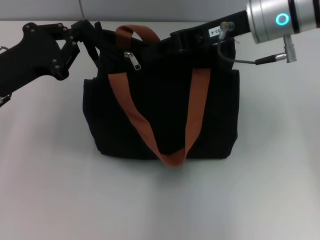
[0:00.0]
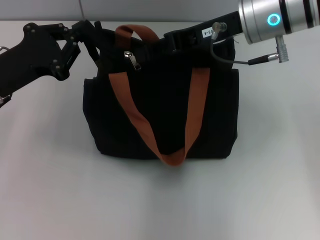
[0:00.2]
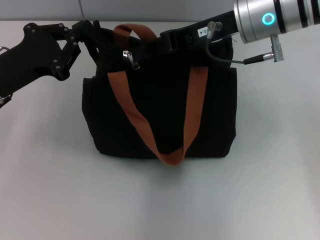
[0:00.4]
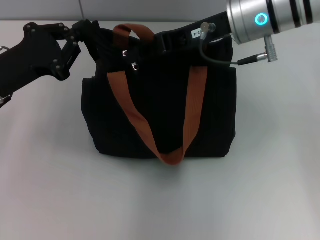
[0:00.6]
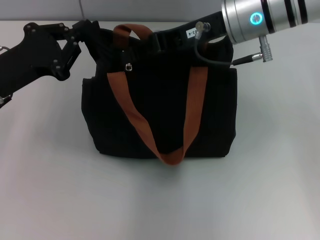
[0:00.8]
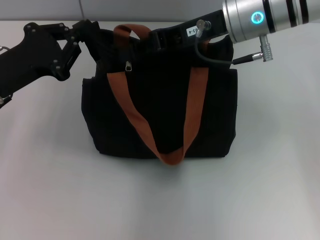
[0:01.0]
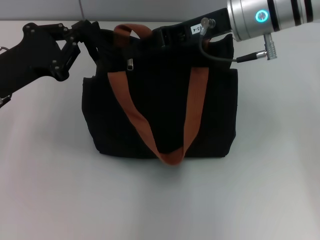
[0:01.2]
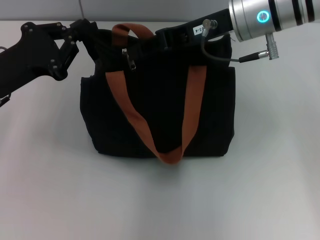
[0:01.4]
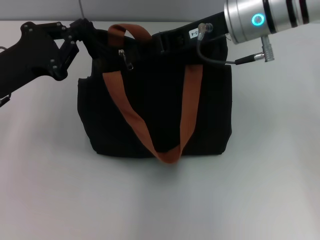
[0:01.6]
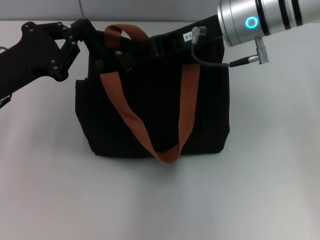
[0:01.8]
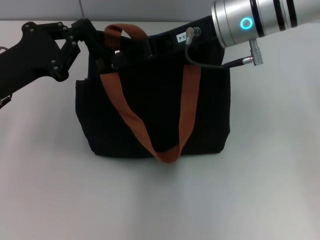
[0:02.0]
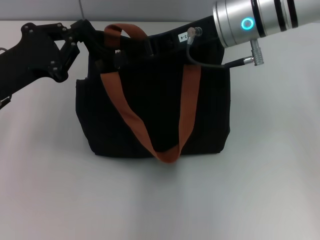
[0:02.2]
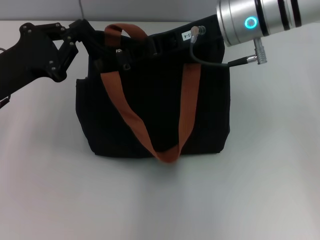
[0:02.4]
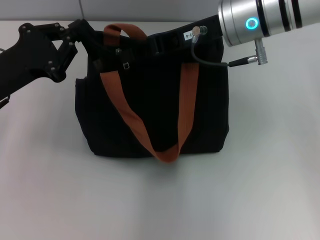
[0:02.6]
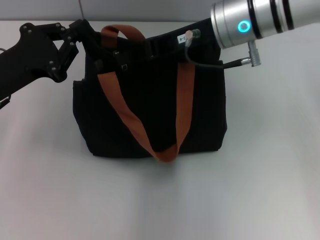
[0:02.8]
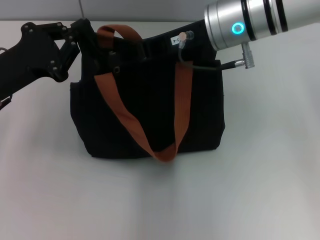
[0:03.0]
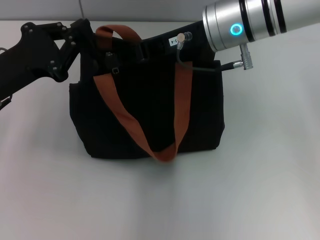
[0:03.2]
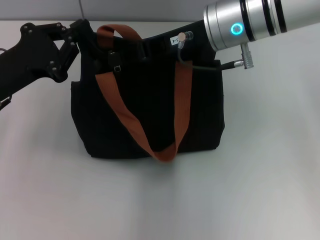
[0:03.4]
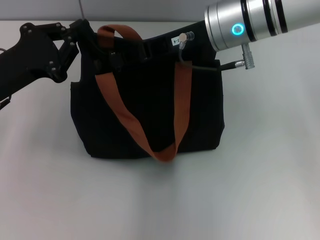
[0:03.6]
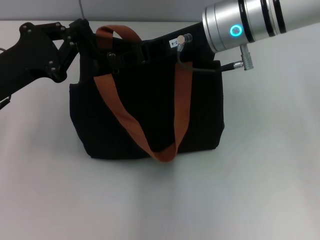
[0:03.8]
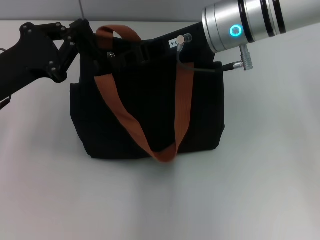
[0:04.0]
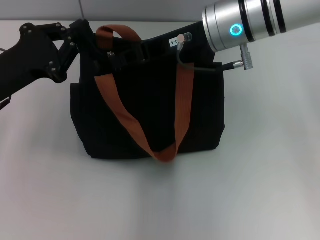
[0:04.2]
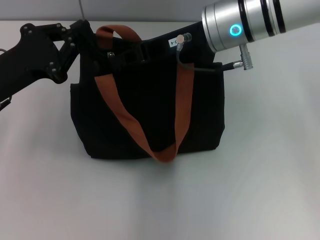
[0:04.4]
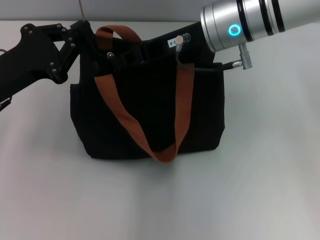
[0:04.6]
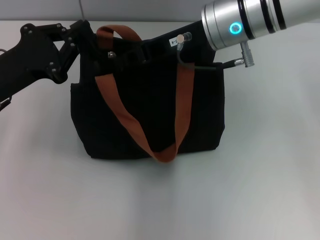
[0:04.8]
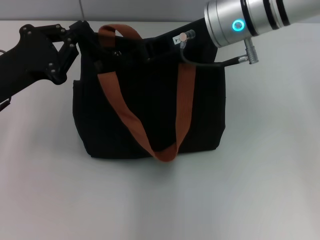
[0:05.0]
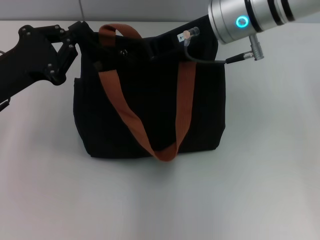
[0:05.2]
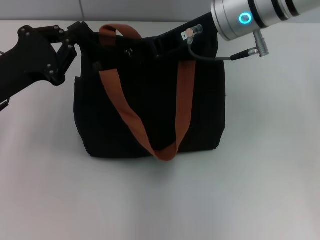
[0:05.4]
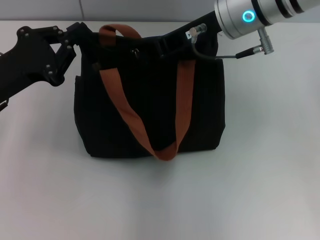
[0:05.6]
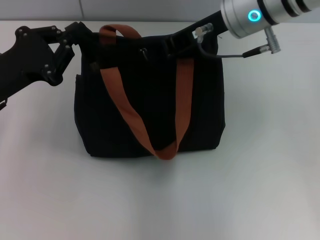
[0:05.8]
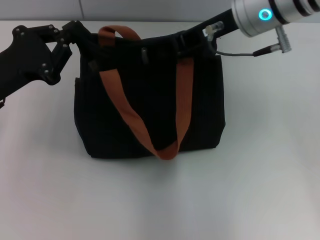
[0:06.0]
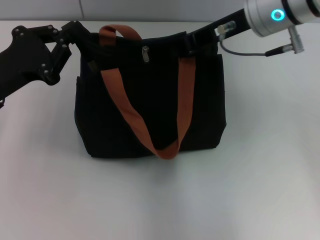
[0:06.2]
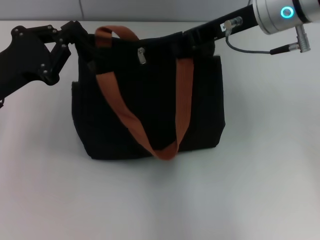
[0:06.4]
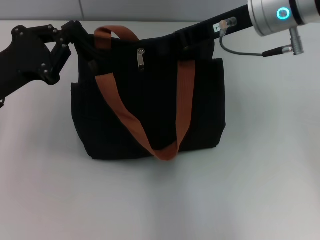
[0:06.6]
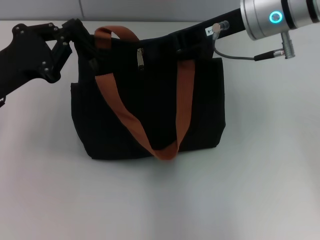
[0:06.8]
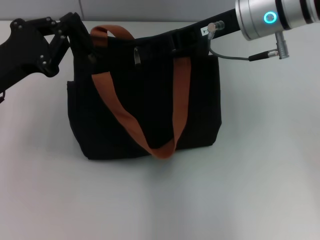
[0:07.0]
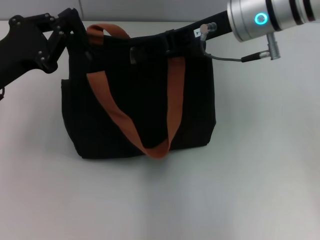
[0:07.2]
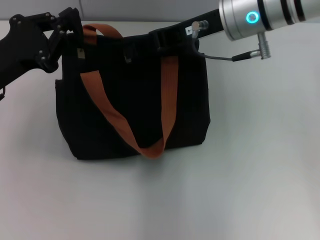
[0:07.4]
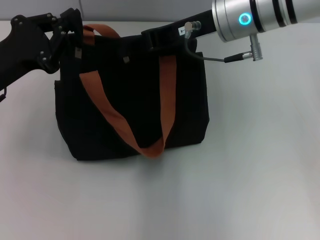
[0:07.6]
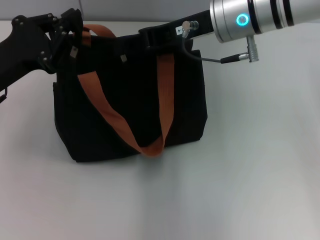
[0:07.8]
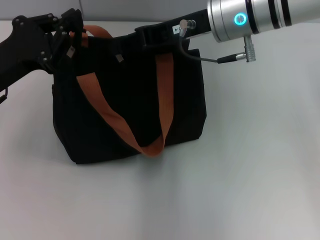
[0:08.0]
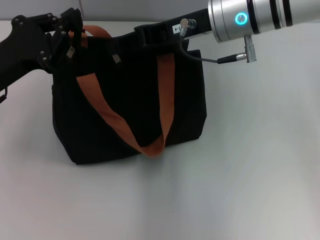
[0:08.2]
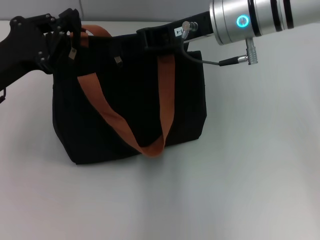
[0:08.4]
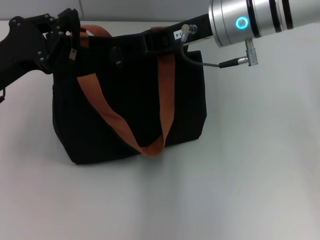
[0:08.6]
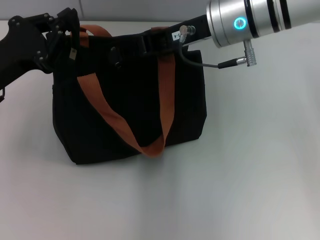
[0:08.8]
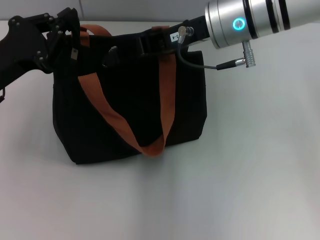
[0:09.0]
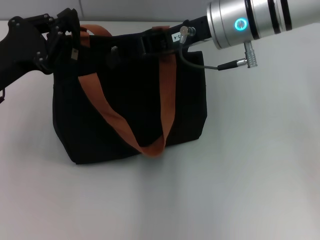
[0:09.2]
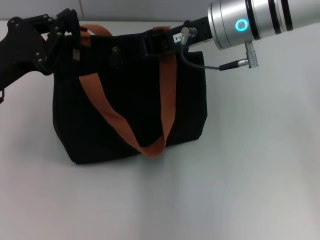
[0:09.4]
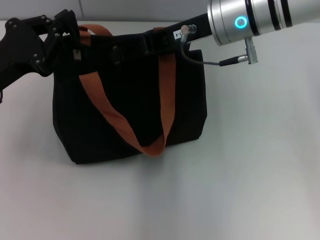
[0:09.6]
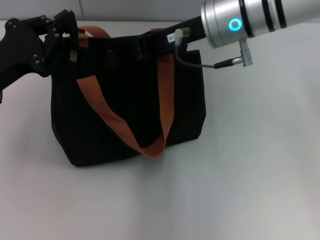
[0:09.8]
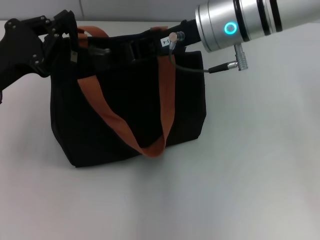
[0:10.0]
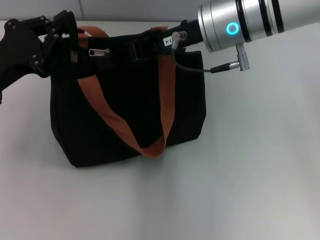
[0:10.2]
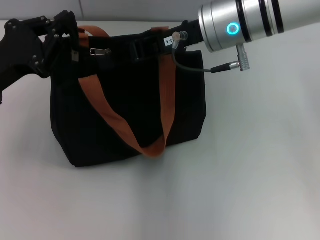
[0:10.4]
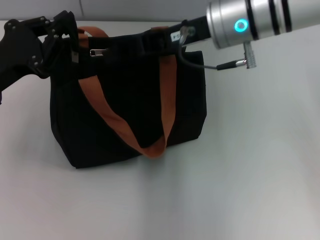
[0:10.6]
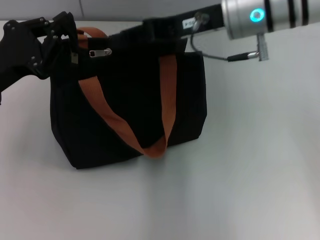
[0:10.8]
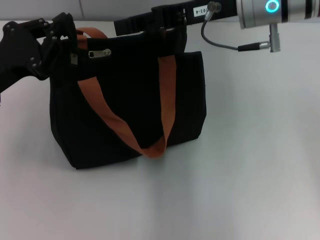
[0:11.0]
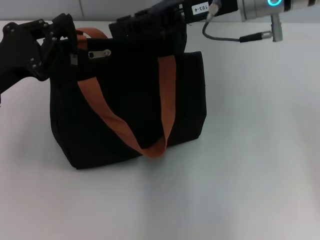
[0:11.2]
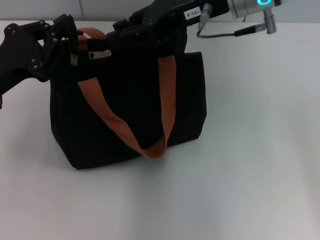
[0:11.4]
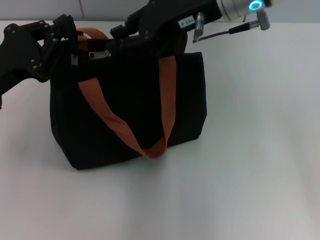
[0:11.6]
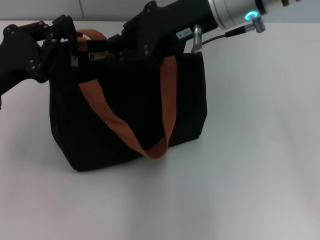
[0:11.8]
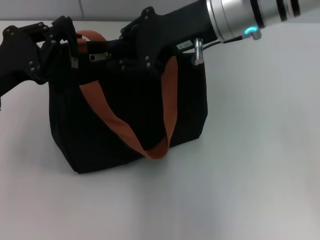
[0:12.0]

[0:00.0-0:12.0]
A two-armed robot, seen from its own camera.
0:00.0 to 0:03.0: The grippers stay close to where they were, moving slightly.
0:03.0 to 0:04.4: Neither gripper changes place.
0:04.4 to 0:06.0: The grippers move only a little.
0:06.0 to 0:07.6: The right gripper opens its fingers.
0:07.6 to 0:09.0: The grippers stay close to where they were, moving slightly.
0:09.0 to 0:10.4: Both grippers stay about where they are.

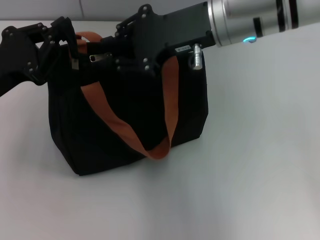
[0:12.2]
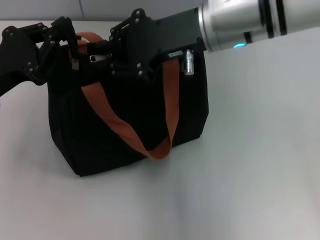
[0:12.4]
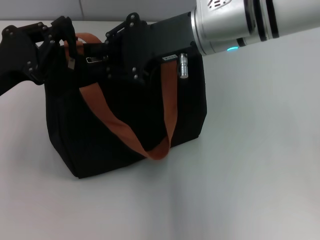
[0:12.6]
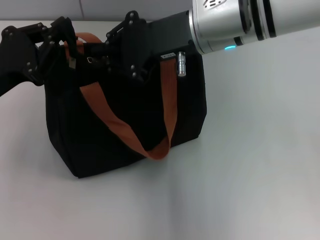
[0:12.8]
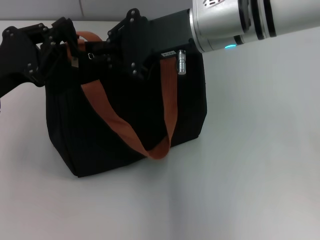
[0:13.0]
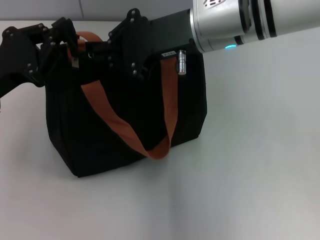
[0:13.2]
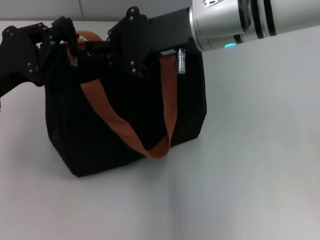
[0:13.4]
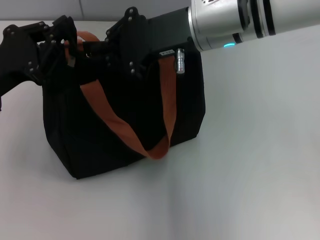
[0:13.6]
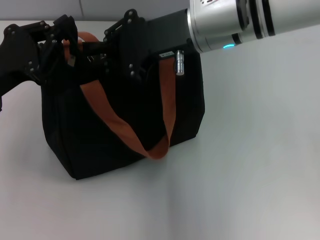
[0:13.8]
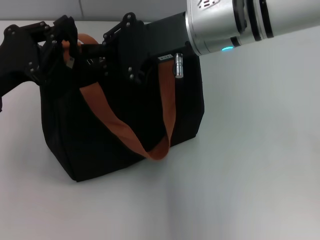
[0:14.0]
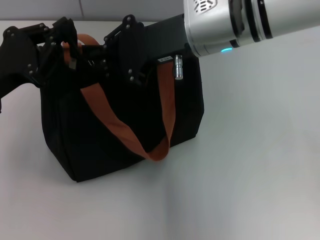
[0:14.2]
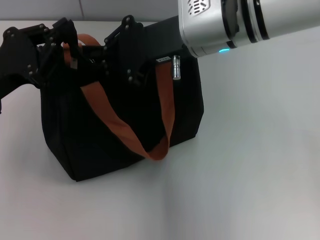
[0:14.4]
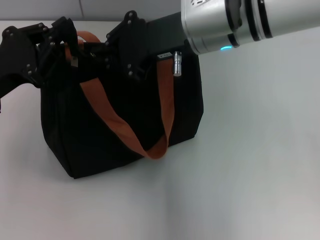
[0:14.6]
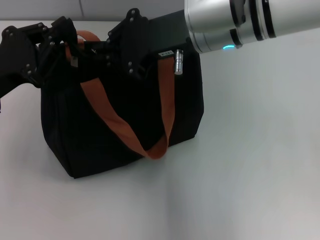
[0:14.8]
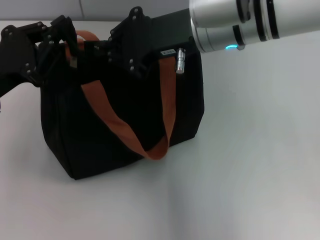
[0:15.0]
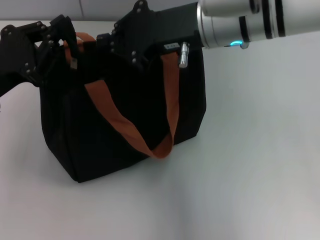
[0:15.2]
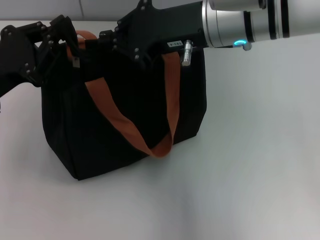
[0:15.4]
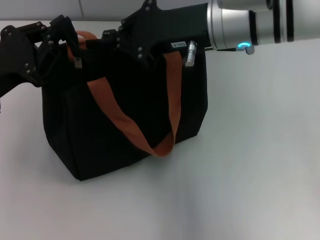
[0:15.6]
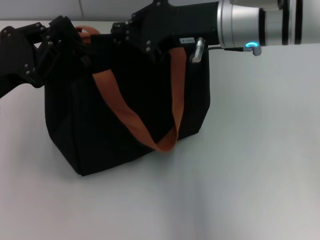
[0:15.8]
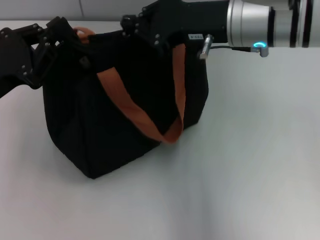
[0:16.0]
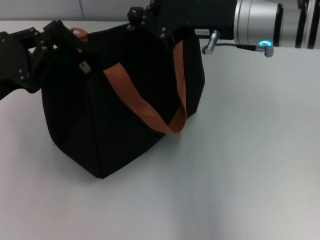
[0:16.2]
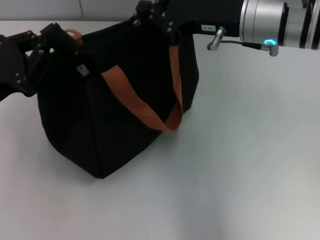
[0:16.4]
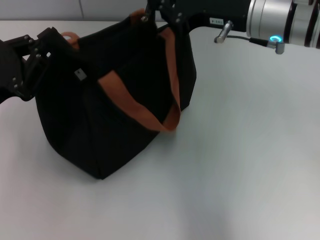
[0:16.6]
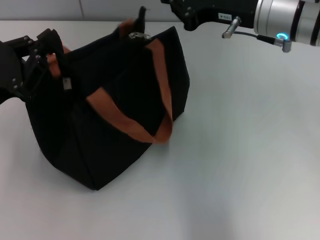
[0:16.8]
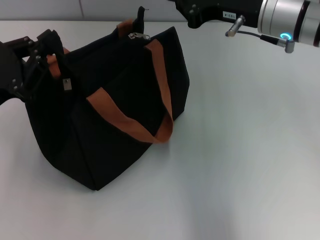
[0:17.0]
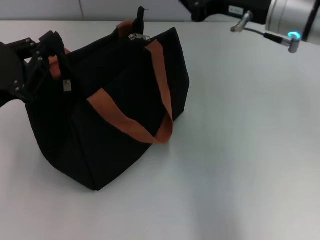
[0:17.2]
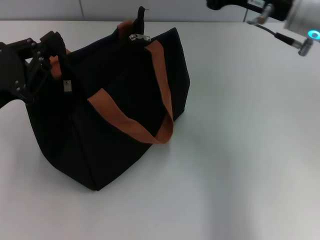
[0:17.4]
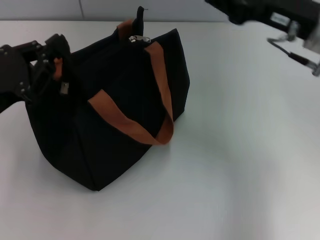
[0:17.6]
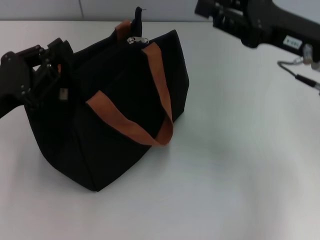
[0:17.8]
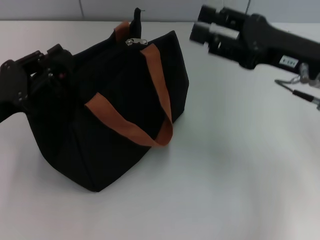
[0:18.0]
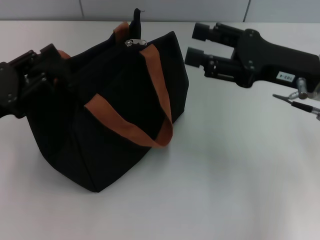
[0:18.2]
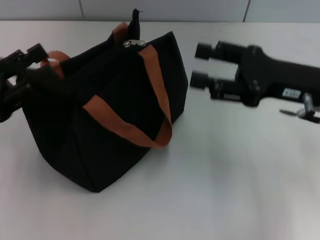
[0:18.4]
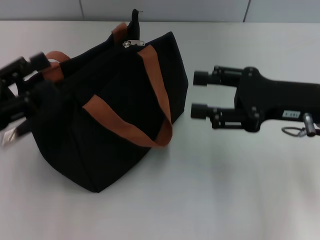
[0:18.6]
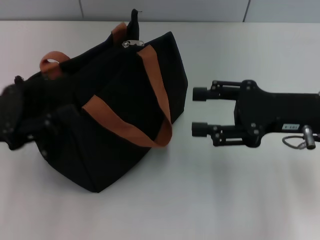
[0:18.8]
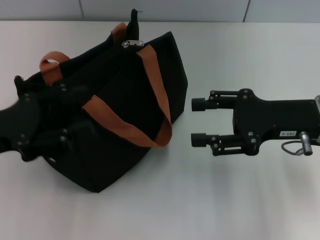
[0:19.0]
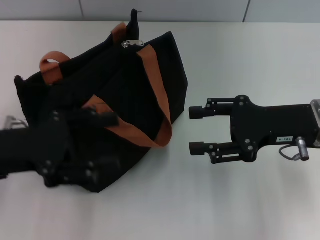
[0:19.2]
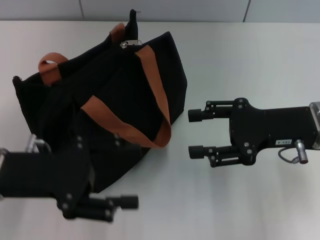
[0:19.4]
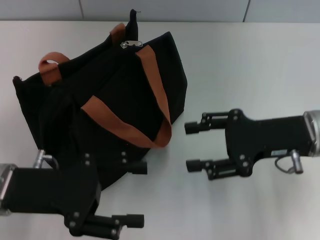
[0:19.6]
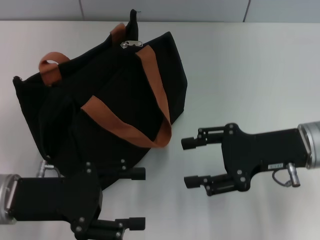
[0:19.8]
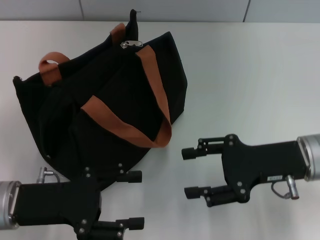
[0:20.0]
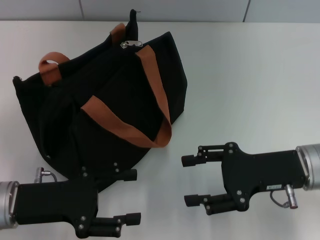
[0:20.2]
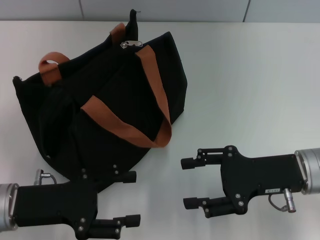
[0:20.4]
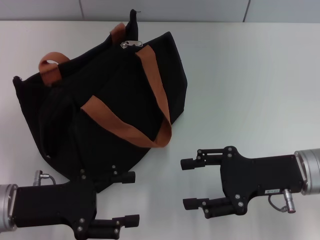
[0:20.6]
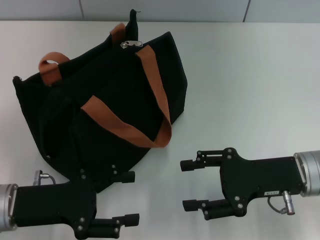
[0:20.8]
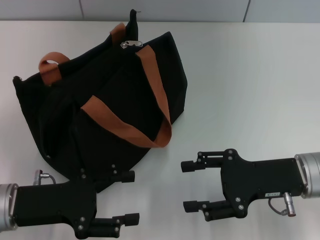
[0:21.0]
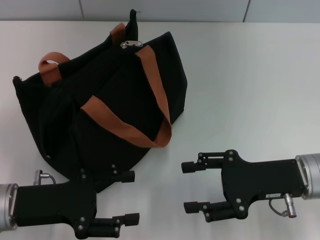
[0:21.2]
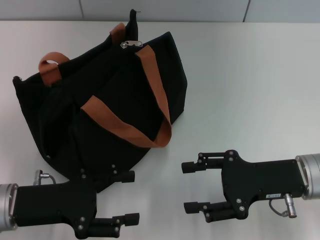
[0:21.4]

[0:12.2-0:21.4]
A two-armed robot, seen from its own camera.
Step, 0:12.2 to 0:16.6: Pull up the zipper with your right hand.
Step, 0:17.0 to 0:18.6: Grab the zipper with your left hand.
0:12.2 to 0:15.2: The grippers stay close to where they were, moving slightly.
0:15.2 to 0:16.8: The right gripper goes some 5 cm to the right.
0:16.8 to 0:18.4: The left gripper opens. Meanwhile the right gripper shifts some 10 cm to the right, backward and downward, and opens its fingers.
0:18.4 to 0:19.8: The left gripper is displaced to the right by roughly 10 cm, and opens.
0:19.8 to 0:21.4: The grippers move only a little.

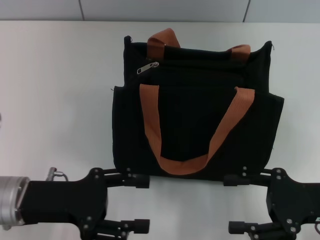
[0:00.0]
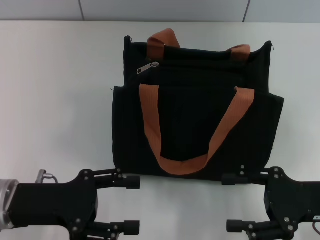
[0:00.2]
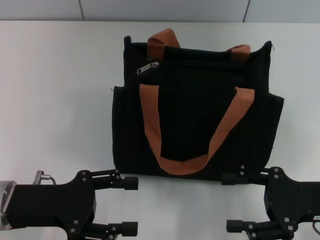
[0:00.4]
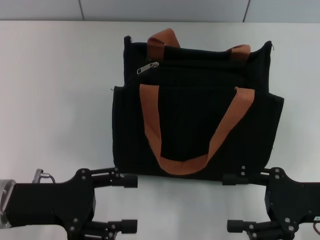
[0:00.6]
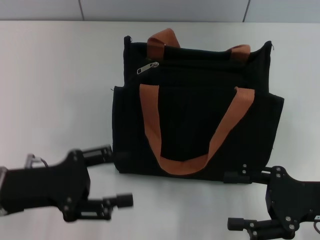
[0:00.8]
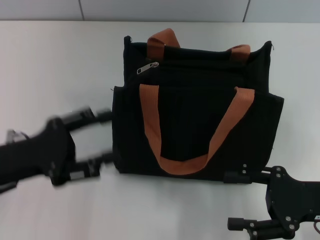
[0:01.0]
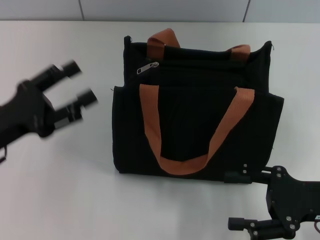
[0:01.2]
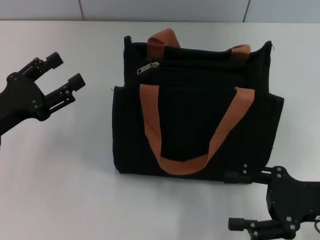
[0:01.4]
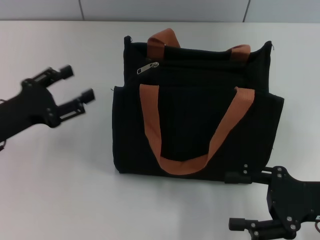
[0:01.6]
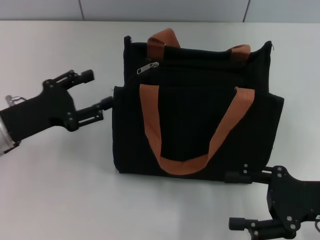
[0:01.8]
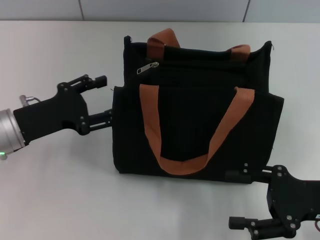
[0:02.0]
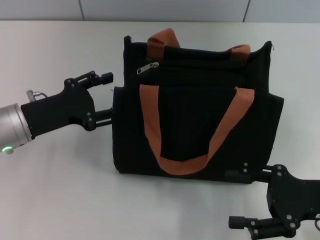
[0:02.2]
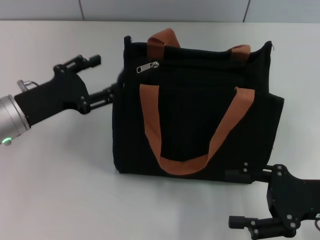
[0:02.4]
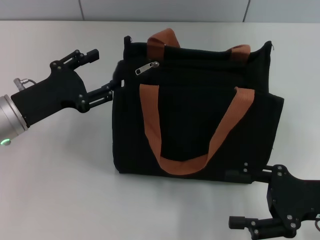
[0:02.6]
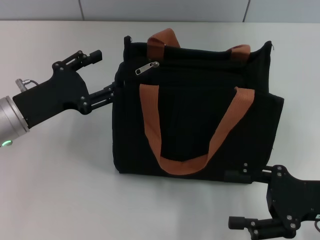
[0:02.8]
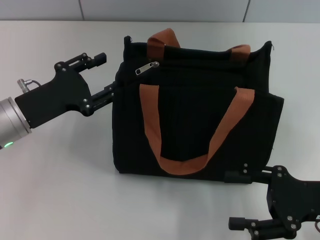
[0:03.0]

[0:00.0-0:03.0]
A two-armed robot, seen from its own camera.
0:00.0 to 0:01.6: The left gripper shifts some 5 cm to the left.
0:01.6 to 0:03.0: There are only small adjustments of the grippers.
